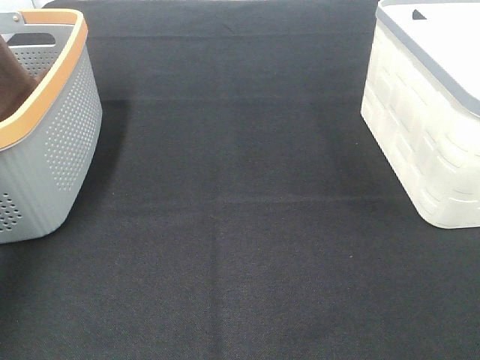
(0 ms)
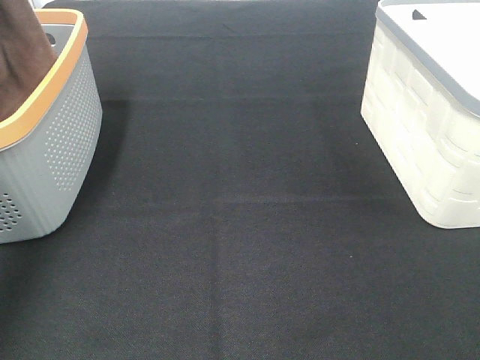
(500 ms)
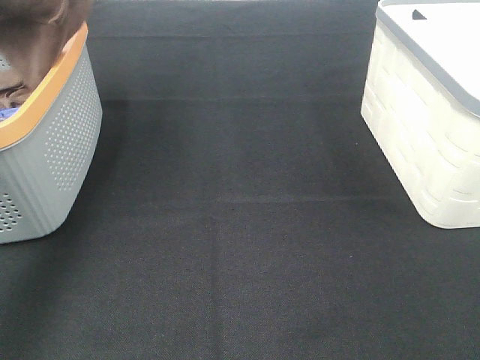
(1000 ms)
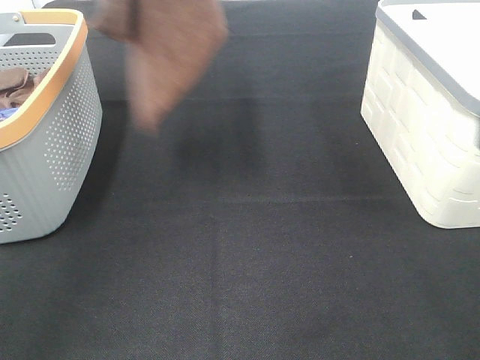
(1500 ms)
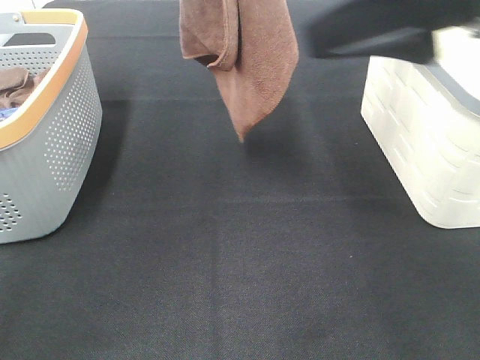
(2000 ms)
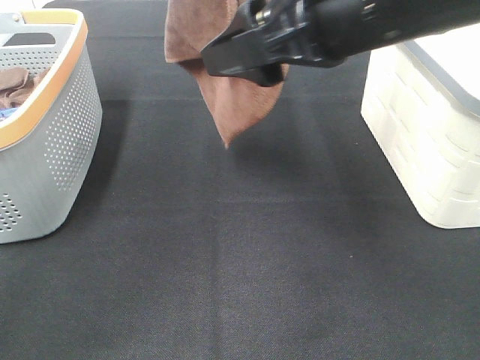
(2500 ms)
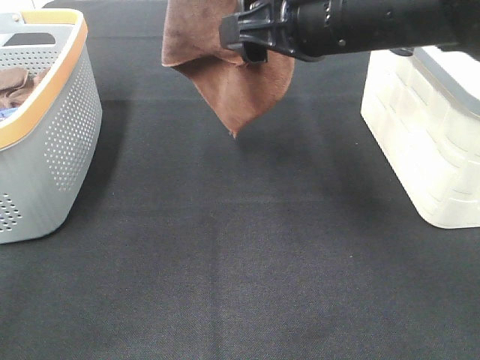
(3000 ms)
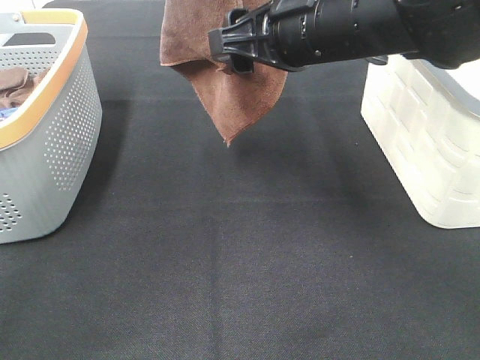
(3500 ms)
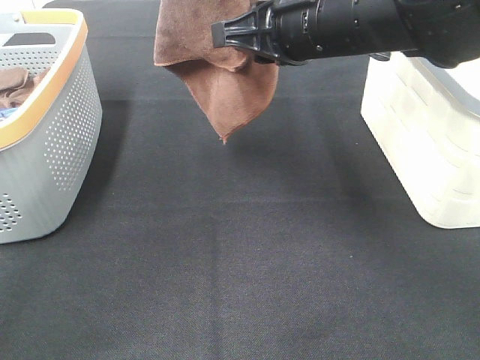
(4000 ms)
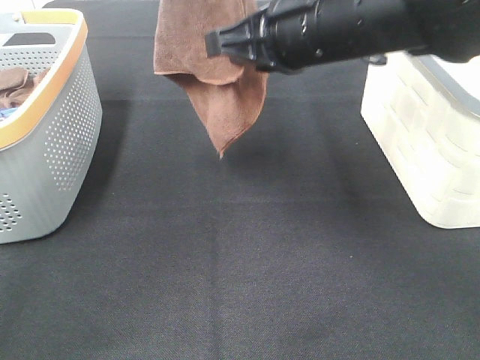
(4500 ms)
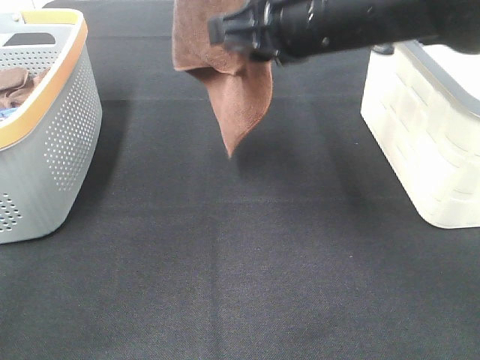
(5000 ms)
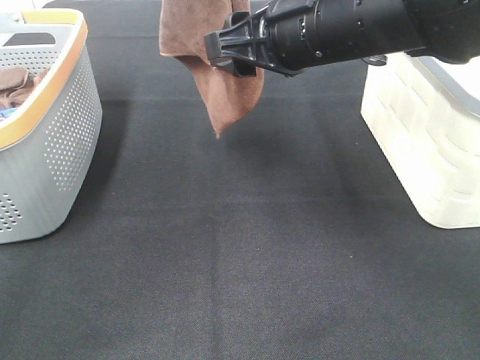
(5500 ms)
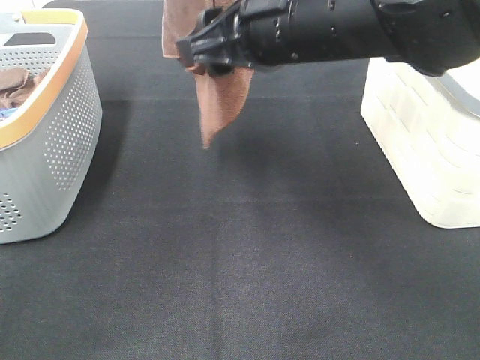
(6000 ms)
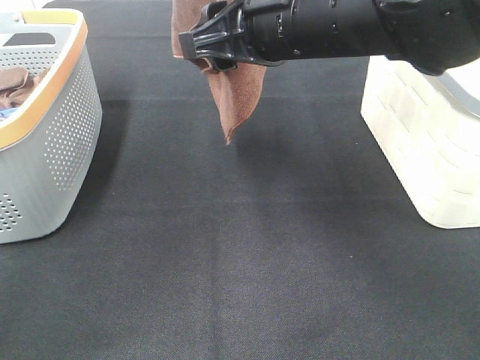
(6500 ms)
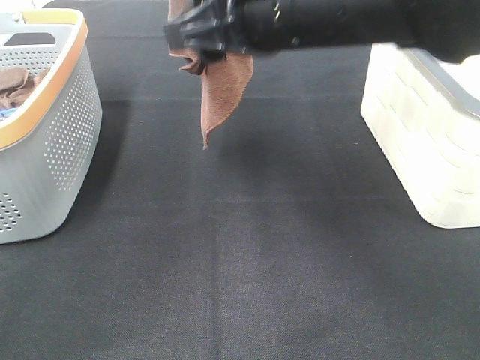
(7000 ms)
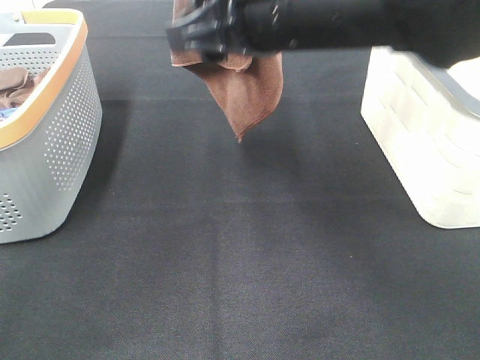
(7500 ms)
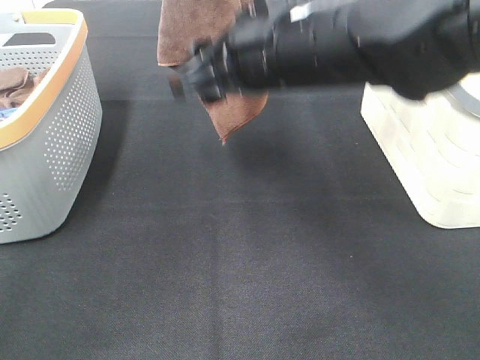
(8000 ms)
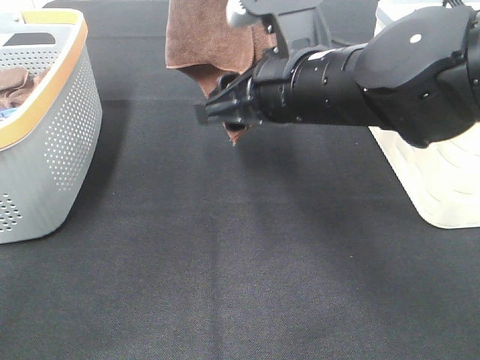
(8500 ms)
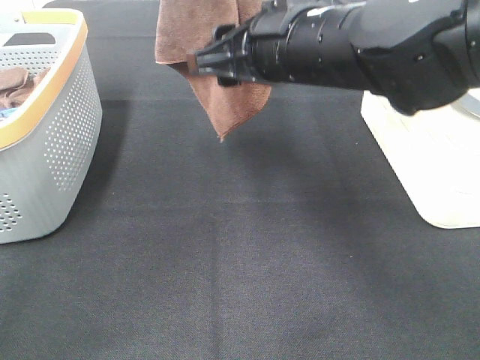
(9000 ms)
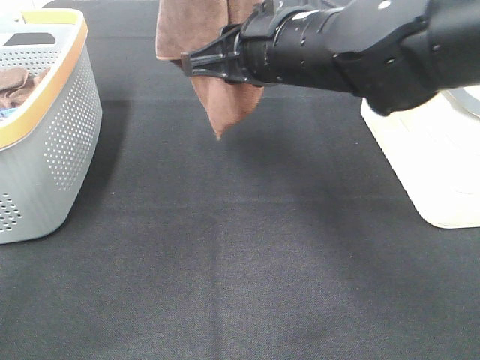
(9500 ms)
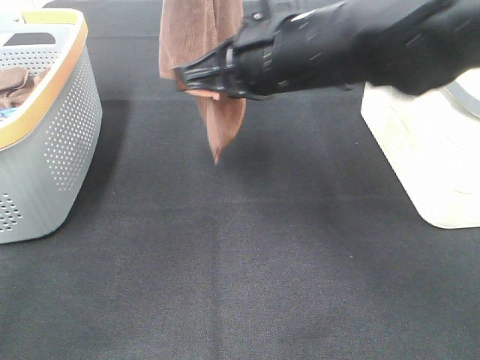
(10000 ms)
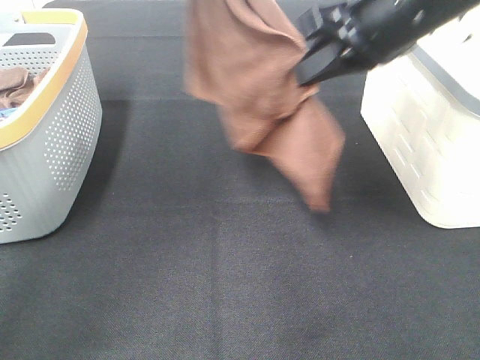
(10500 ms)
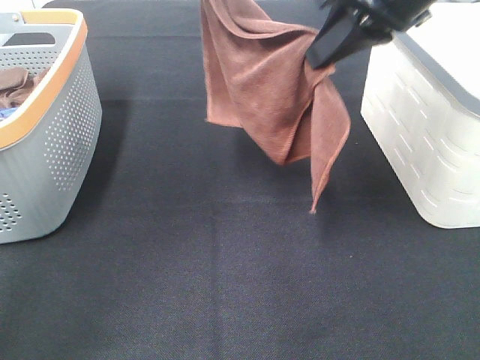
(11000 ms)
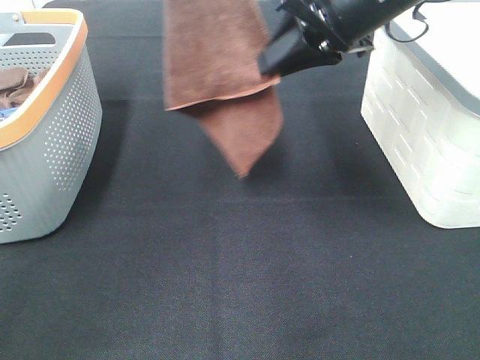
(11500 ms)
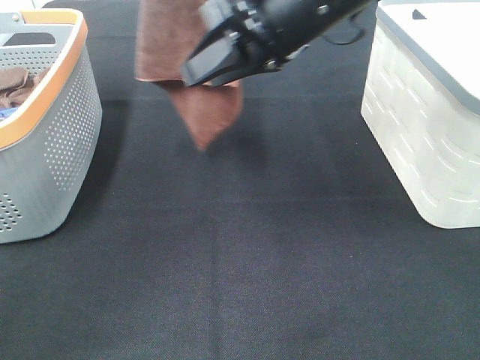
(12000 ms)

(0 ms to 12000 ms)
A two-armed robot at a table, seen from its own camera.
Task of the whole recording: Remove the towel and place it.
0 ms - 2000 ms: The left gripper goes roughly 25 cm to the right. Meanwhile the right gripper moves forward, to the left and upward, roughly 25 cm.
2000 ms - 4000 ms: The right gripper is displaced forward, downward and to the left by approximately 15 cm, and closes.
4000 ms - 6000 ms: The right gripper opens up.
6000 ms - 8000 ms: The grippers stay close to where they were, moving slightly.
8000 ms - 10000 ms: The right gripper closes its fingers.
10000 ms - 12000 ms: The right gripper travels to the right and back again, approximately 10 cm each way, and opens its fingers.

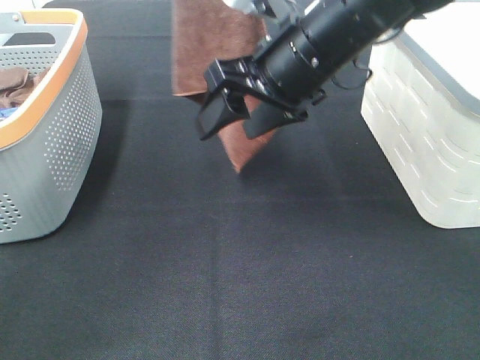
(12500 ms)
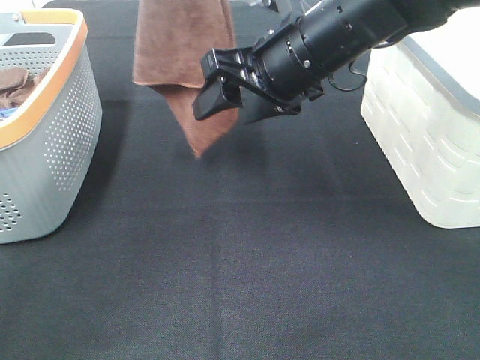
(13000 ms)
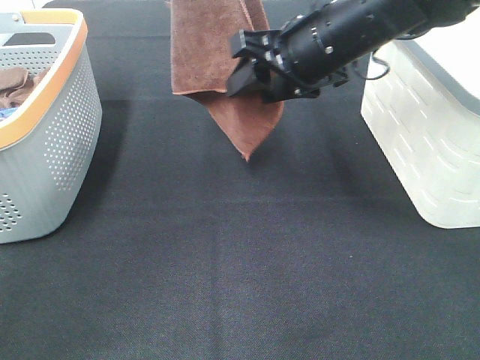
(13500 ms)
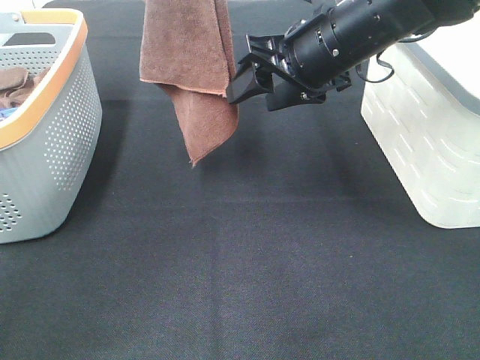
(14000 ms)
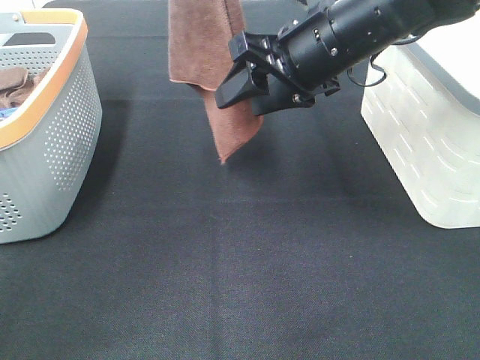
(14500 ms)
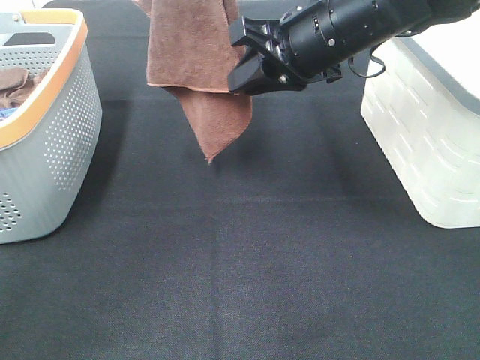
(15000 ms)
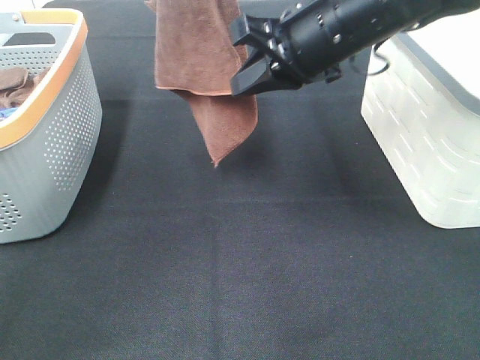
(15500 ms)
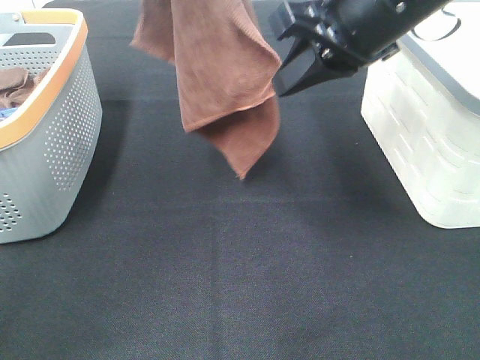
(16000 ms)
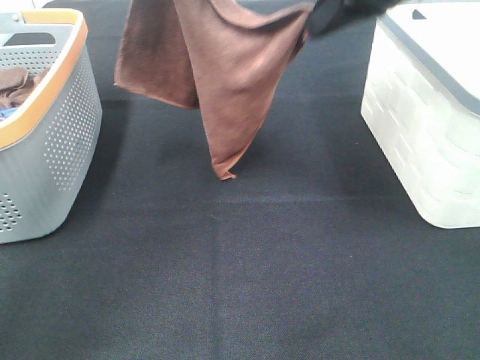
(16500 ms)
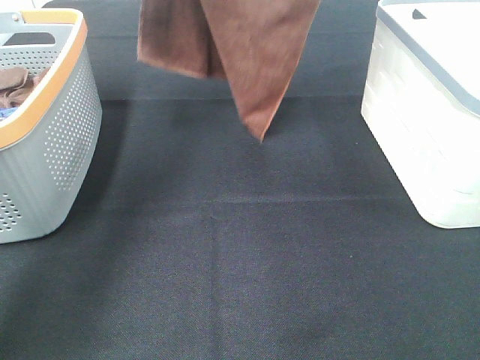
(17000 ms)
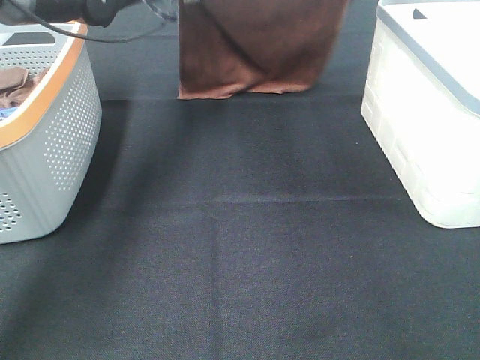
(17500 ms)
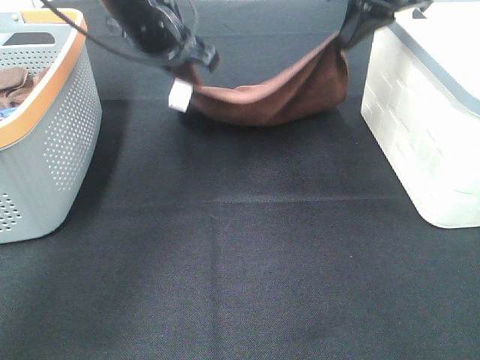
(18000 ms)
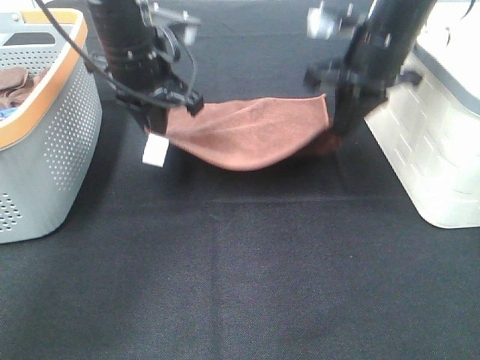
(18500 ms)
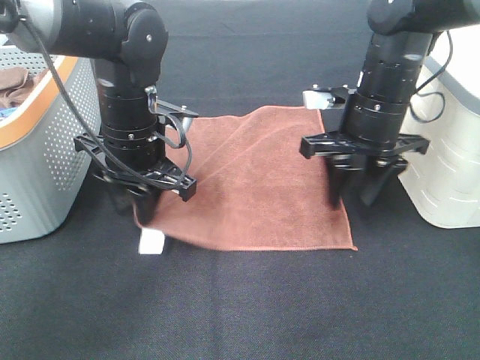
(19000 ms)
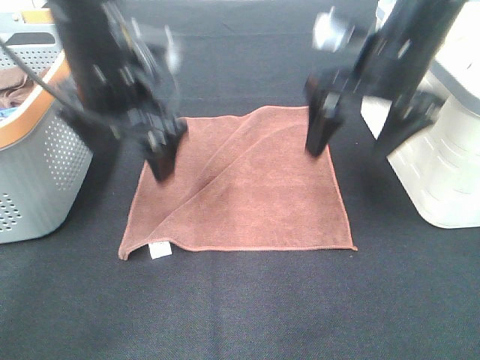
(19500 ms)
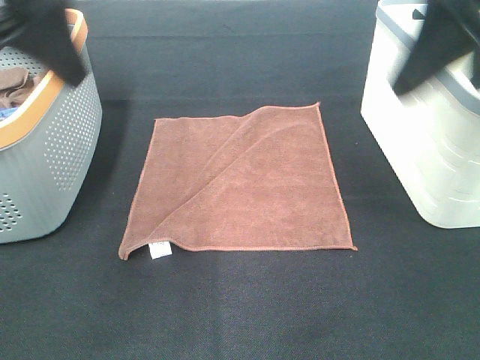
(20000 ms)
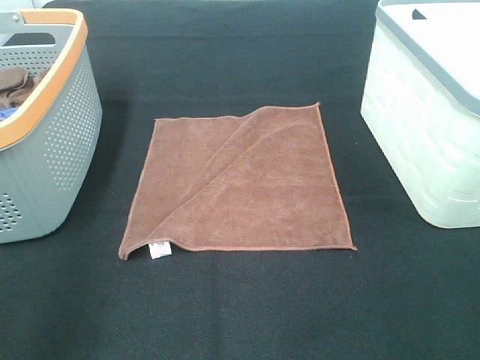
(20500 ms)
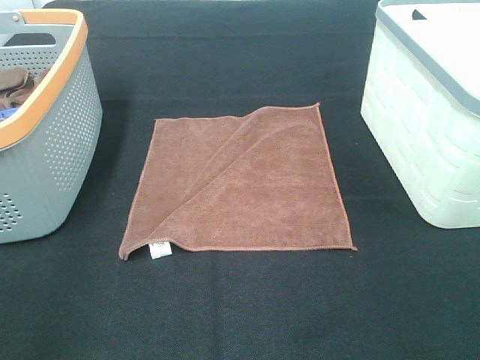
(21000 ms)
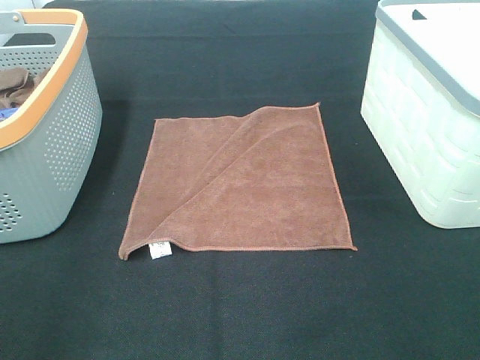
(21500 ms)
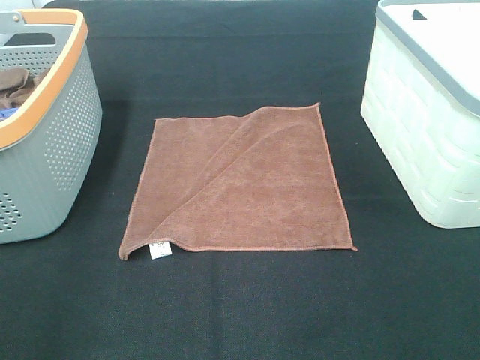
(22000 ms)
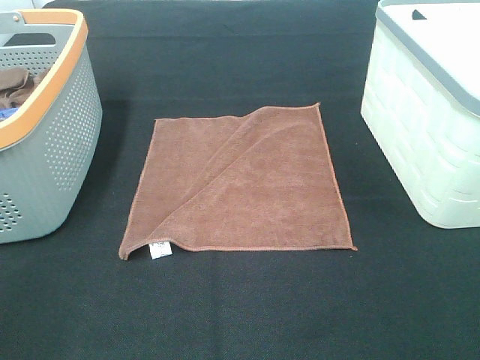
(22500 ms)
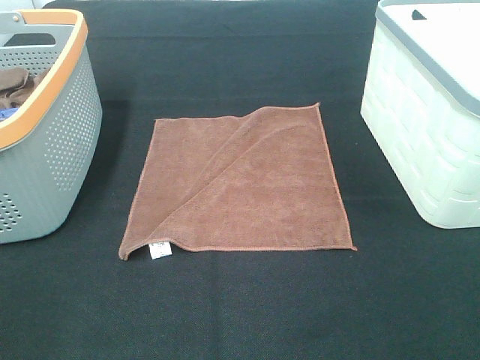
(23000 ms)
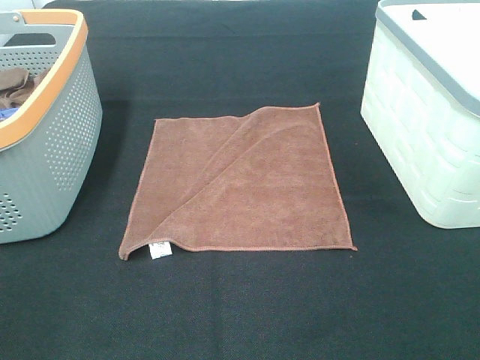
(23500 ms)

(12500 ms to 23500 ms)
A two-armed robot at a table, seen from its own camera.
Task of the whole recording: Remove the towel and place it.
Step, 12500 ms - 13500 ms: Right hand: spread the brown towel flat on the table.
12500 ms - 14500 ms: The grippers make only small movements.
14500 ms - 16000 ms: The right gripper is displaced upward by roughly 5 cm, and closes up.
16000 ms - 18000 ms: The left gripper moves downward, roughly 20 cm. The right gripper heads forward, covering about 15 cm.
18000 ms - 20000 ms: The left gripper goes about 25 cm backward and upward, and opens up. The right gripper moves backward, some 25 cm, and opens its fingers.
20000 ms - 21500 ms: The left gripper moves backward, downward and to the left, approximately 25 cm; the right gripper moves backward and downward, some 20 cm.

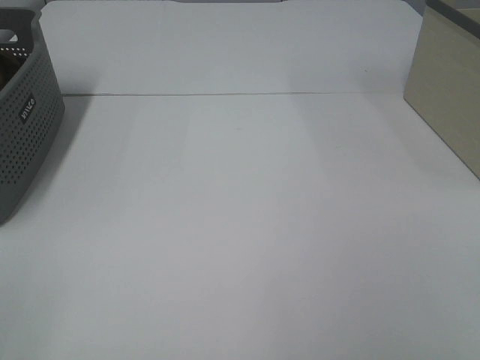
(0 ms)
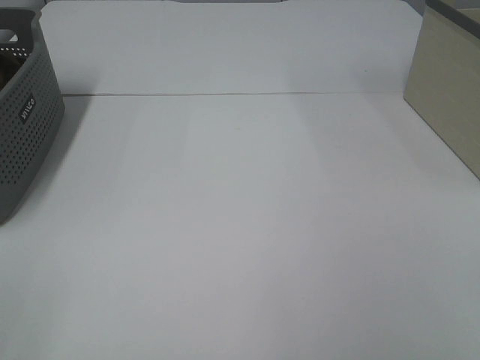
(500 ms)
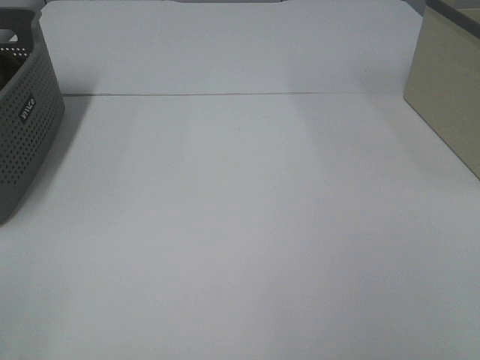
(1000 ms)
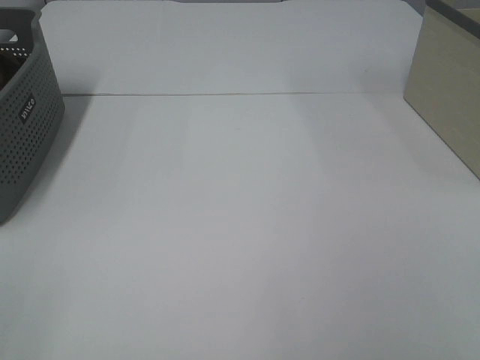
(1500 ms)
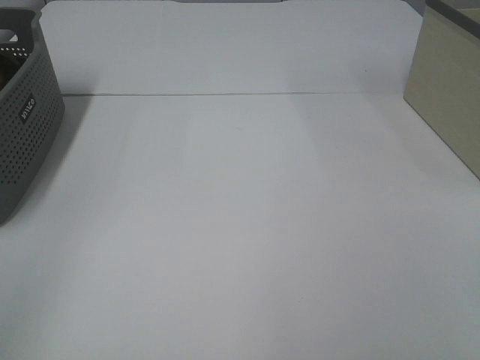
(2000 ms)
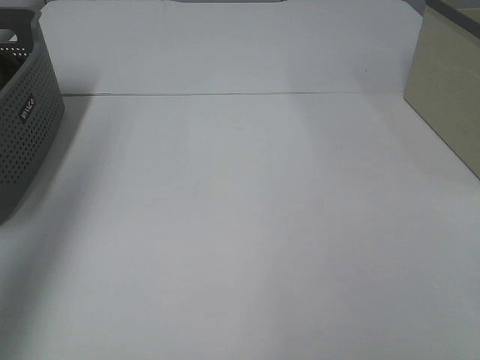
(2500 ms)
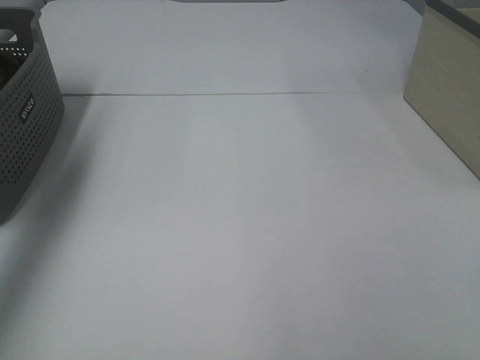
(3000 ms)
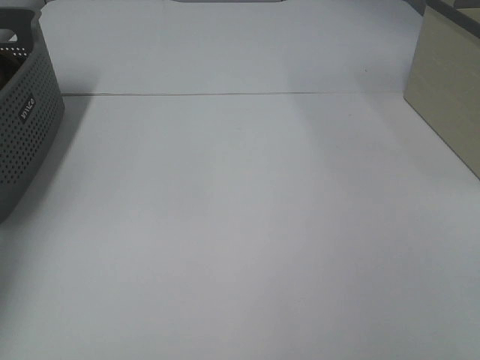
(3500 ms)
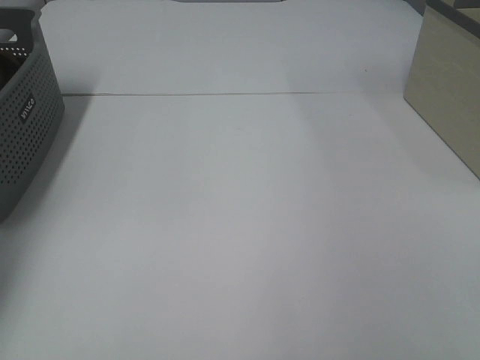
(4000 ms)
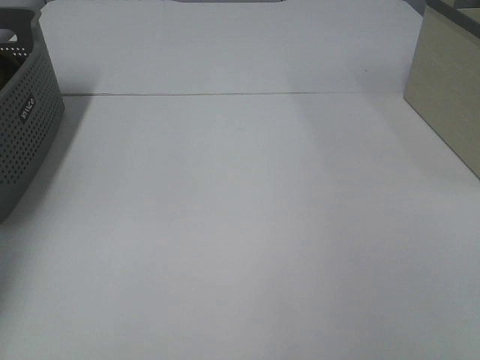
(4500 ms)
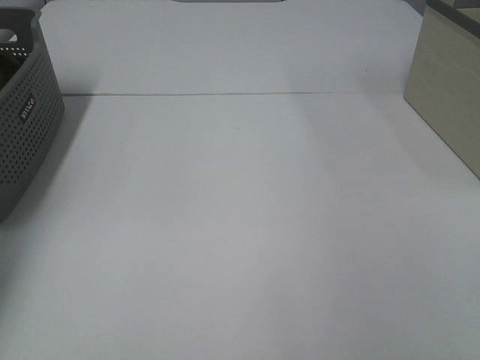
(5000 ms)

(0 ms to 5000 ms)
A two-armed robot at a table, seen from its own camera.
Task of the whole recording: Remove the towel and place it.
0 ms - 2500 ms: The left gripper heads forward and upward, covering roughly 25 cm.
2500 ms - 5000 ms: The left gripper shifts roughly 30 cm forward and downward, and closes its fingers.
